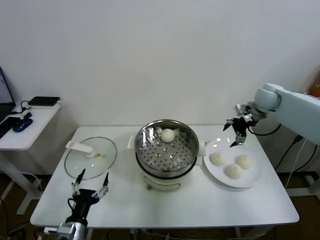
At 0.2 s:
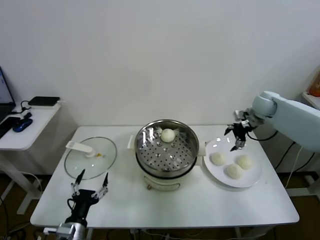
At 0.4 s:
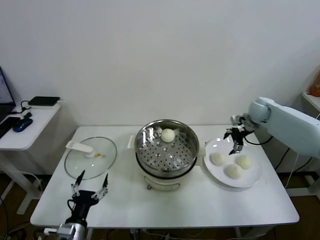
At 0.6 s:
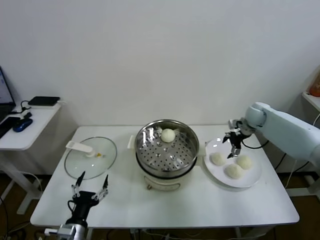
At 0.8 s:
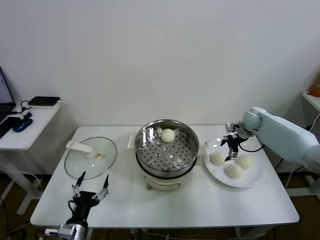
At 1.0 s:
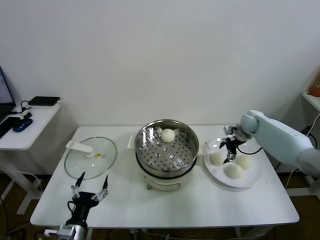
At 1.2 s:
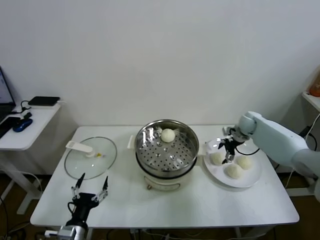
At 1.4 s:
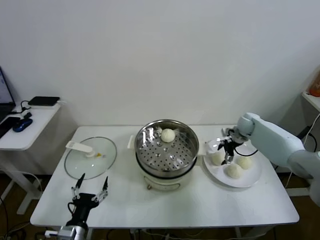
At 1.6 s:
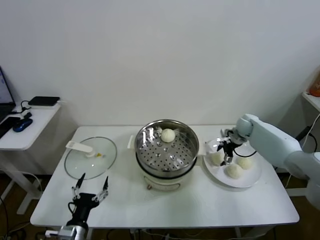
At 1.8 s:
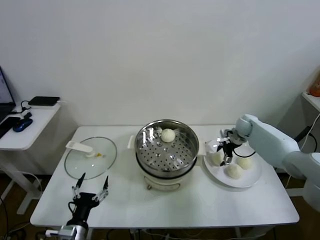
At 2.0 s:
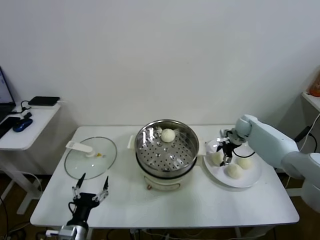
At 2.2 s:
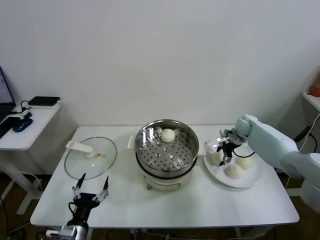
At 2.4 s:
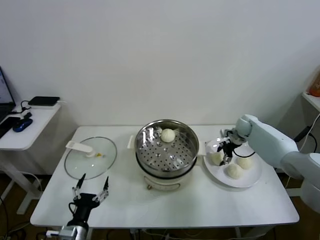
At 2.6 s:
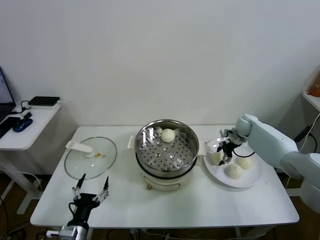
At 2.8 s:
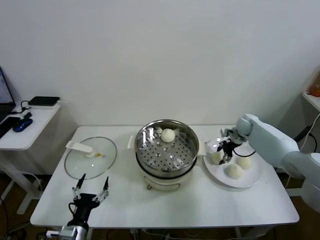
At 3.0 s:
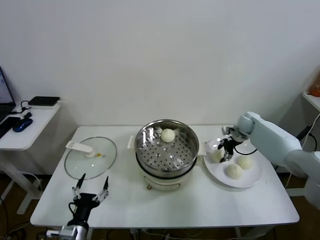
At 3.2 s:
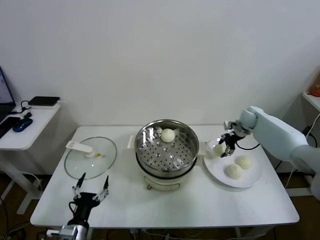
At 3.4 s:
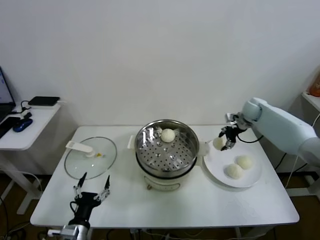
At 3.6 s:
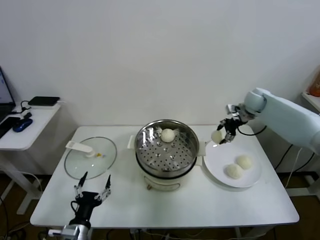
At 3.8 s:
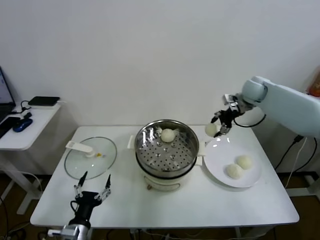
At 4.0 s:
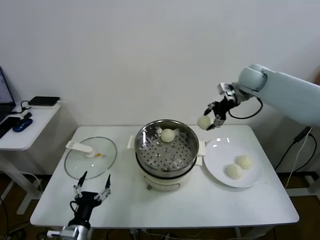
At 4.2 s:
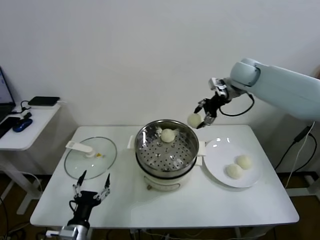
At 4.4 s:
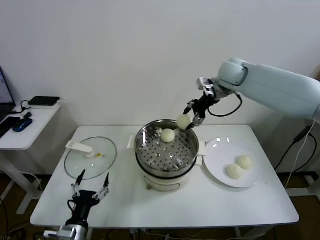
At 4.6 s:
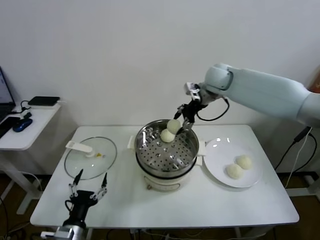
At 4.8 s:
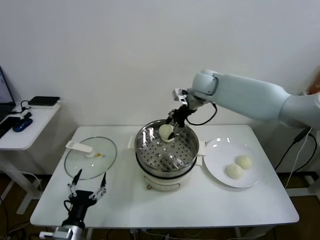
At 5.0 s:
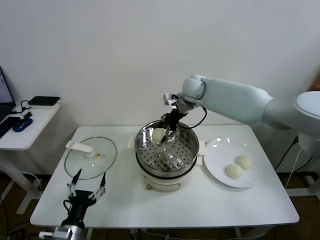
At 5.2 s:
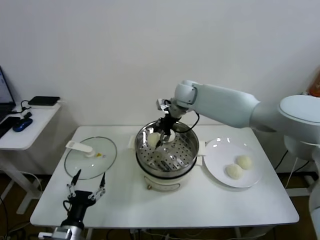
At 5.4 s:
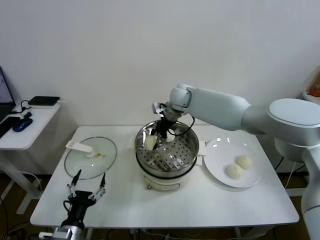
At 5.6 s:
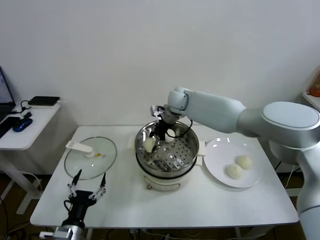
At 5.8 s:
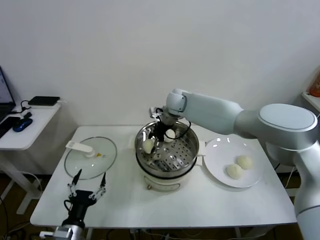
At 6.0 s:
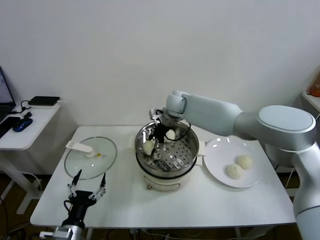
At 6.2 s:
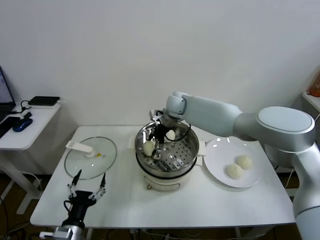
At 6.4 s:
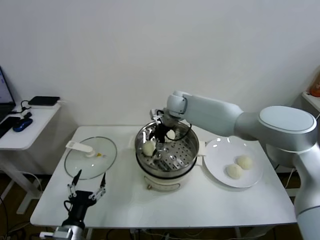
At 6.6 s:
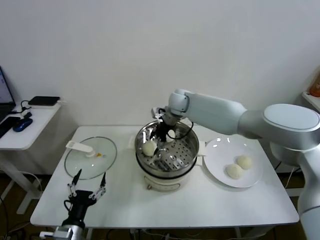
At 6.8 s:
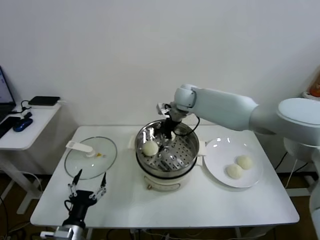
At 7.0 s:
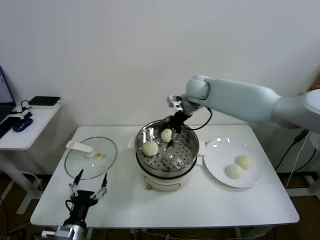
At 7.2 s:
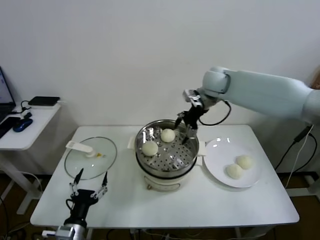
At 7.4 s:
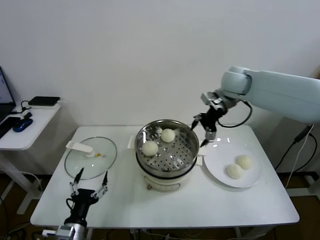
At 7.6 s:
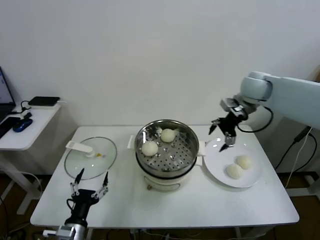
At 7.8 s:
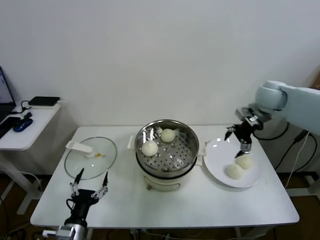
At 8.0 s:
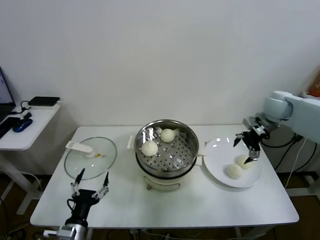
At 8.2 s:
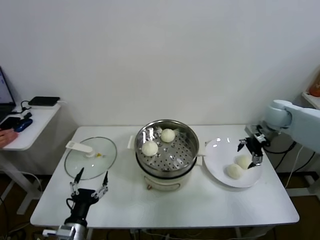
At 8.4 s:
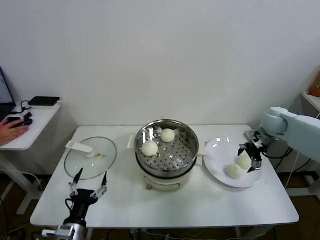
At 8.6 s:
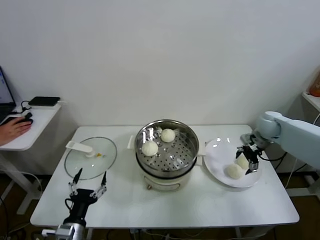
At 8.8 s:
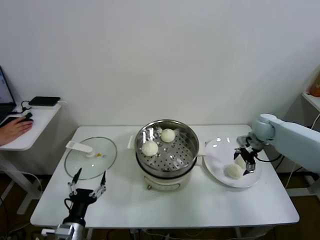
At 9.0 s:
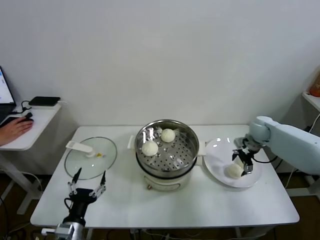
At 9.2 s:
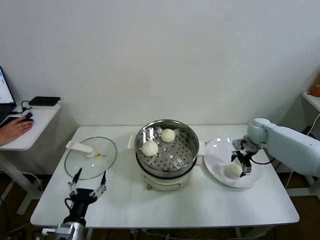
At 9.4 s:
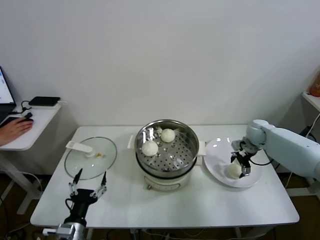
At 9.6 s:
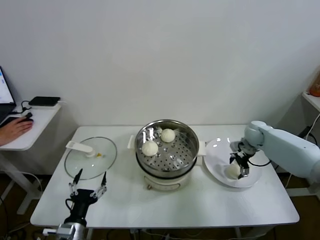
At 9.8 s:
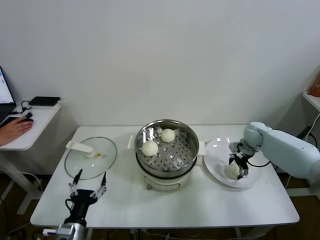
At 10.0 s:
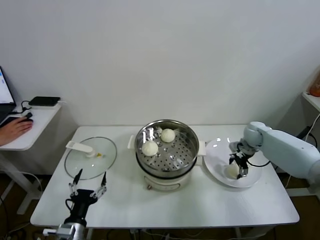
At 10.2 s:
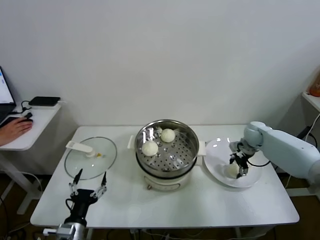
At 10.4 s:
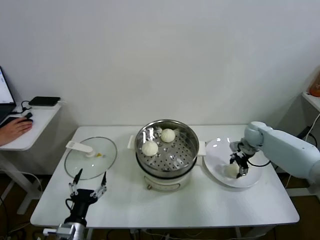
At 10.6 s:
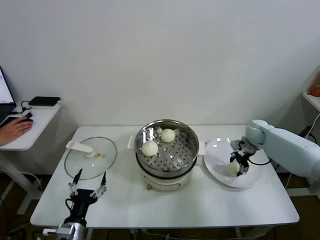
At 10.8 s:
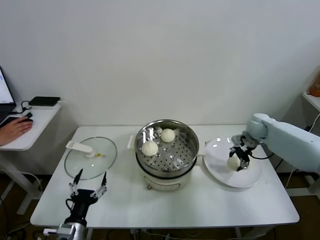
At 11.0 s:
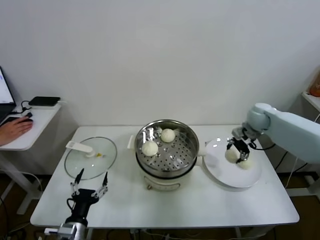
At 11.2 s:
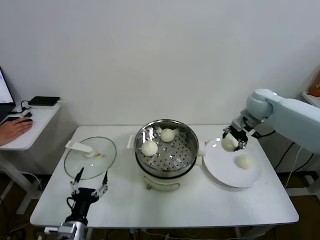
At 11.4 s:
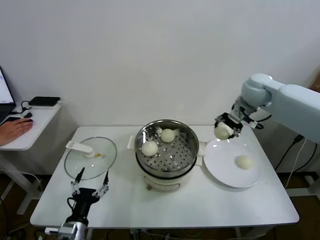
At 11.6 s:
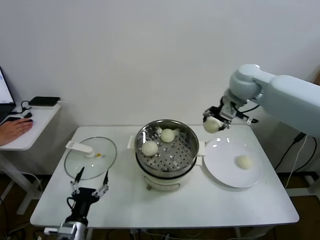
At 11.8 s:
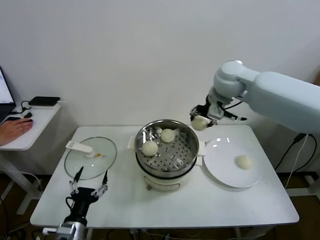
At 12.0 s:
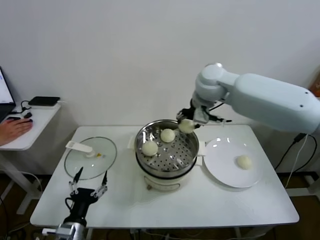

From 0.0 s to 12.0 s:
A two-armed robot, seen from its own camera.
Task of the whole recording: take steamed baozi put them in steamer.
Step, from 0.0 s to 2.6 s: Grasp the baozi in the plate with right gripper.
Step, from 2.8 s to 6.4 s: Place the baozi on the steamer with right gripper.
Step, from 6.6 s to 10.4 s: Grasp the baozi in the plate with right gripper.
From 0.0 s to 1.6 s: The right gripper goes some 15 cm downward.
From 1.6 s to 3.0 s: The right gripper closes up.
From 3.0 s to 4.4 s: The right gripper shifts roughly 30 cm upward and to the left.
From 4.4 s to 6.0 s: The right gripper is displaced to the left and downward by approximately 20 cm.
From 6.0 s to 7.6 s: The right gripper goes approximately 25 cm to the right and upward, and opens its fingers.
From 7.6 s to 9.0 s: The right gripper heads downward and to the right, covering about 20 cm.
From 9.0 s to 10.4 s: The right gripper closes up.
From 10.4 s to 12.0 s: The right gripper travels upward and to the left by approximately 35 cm.

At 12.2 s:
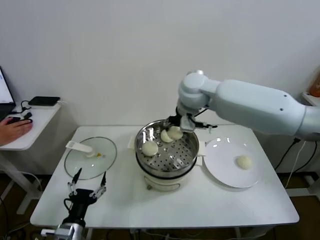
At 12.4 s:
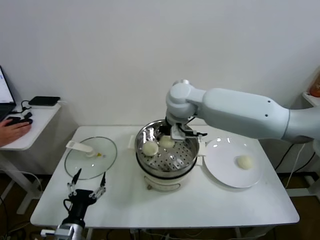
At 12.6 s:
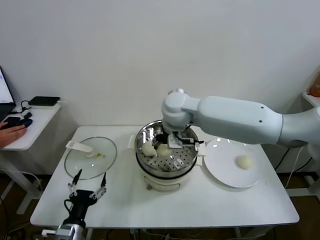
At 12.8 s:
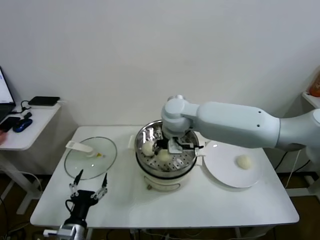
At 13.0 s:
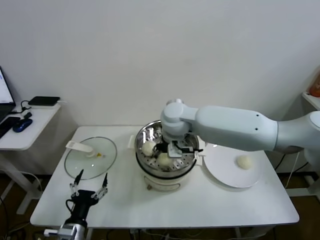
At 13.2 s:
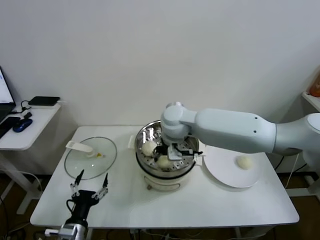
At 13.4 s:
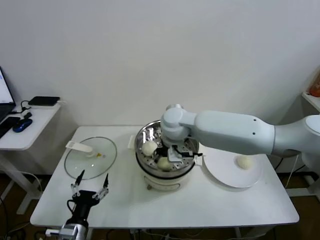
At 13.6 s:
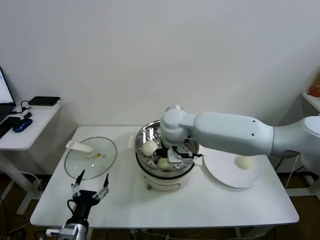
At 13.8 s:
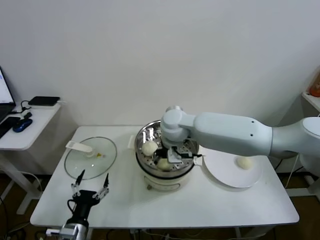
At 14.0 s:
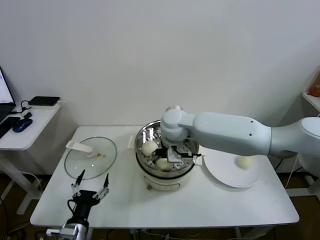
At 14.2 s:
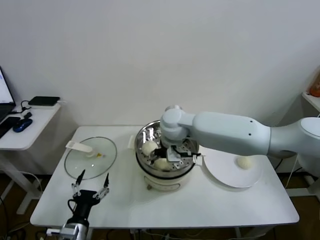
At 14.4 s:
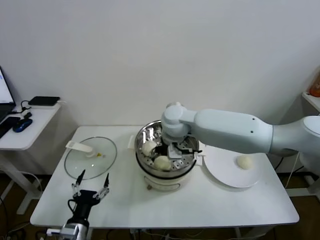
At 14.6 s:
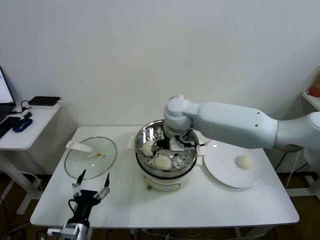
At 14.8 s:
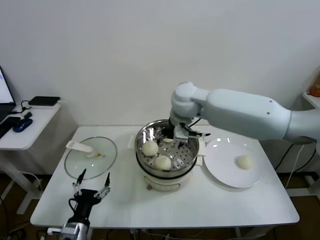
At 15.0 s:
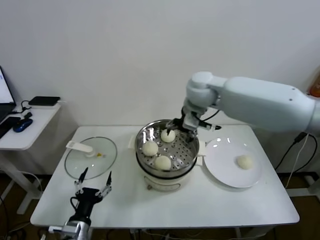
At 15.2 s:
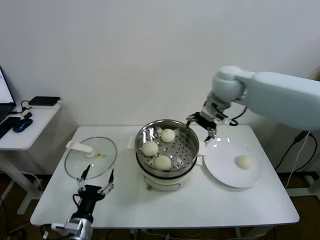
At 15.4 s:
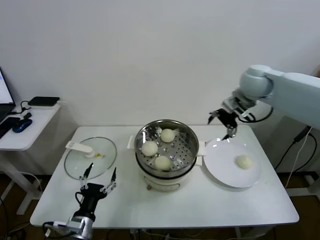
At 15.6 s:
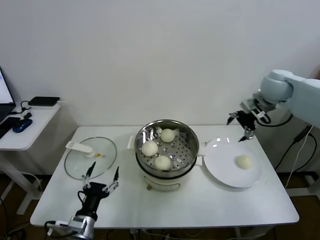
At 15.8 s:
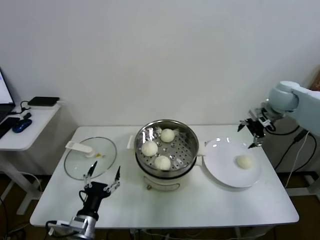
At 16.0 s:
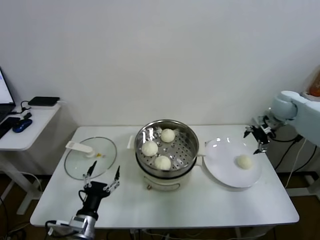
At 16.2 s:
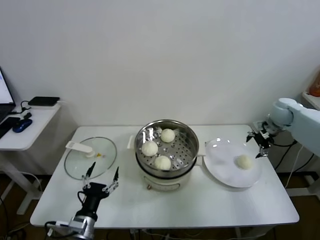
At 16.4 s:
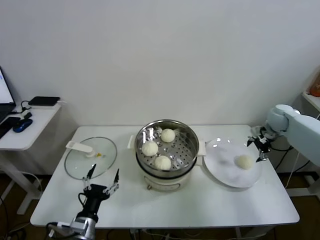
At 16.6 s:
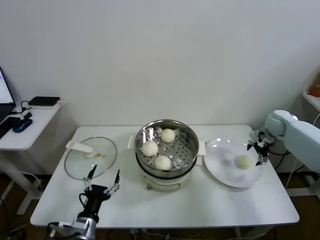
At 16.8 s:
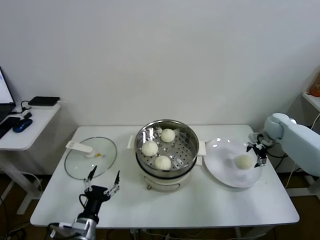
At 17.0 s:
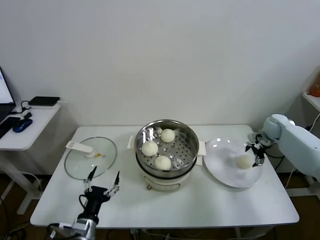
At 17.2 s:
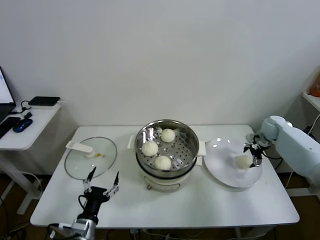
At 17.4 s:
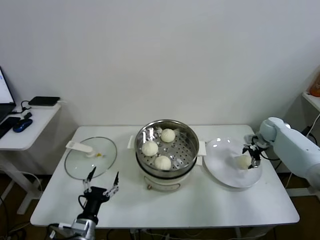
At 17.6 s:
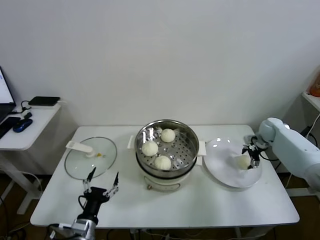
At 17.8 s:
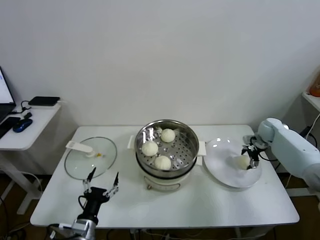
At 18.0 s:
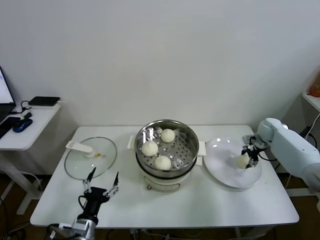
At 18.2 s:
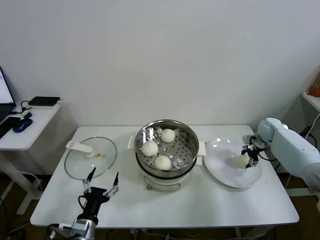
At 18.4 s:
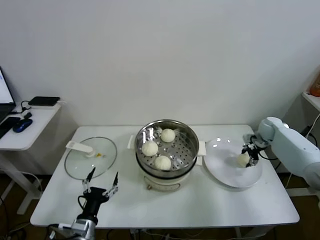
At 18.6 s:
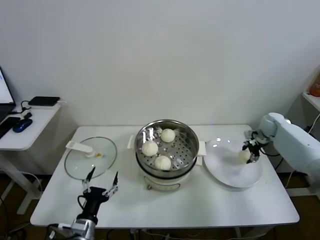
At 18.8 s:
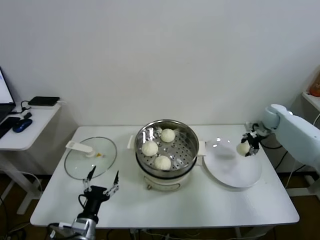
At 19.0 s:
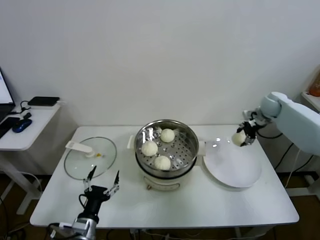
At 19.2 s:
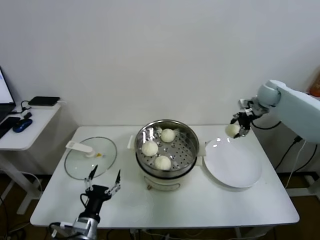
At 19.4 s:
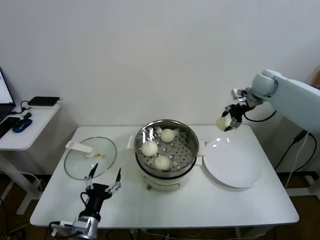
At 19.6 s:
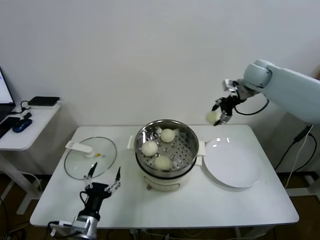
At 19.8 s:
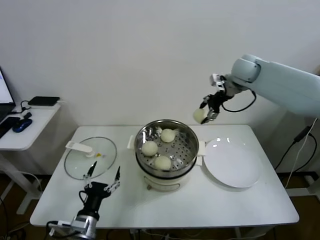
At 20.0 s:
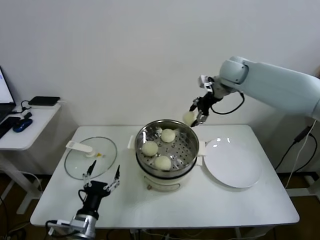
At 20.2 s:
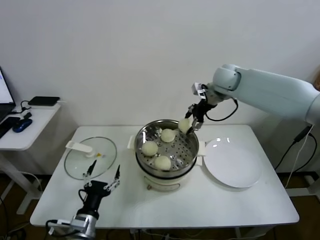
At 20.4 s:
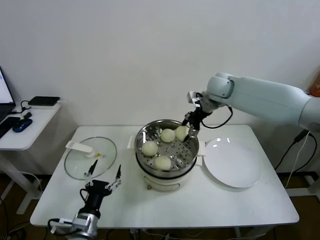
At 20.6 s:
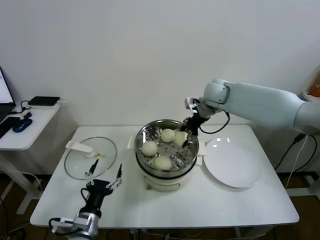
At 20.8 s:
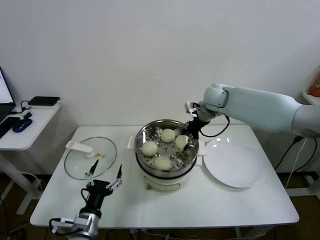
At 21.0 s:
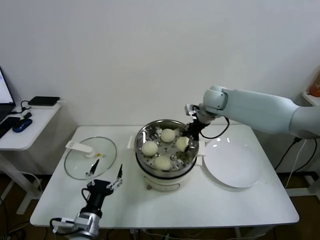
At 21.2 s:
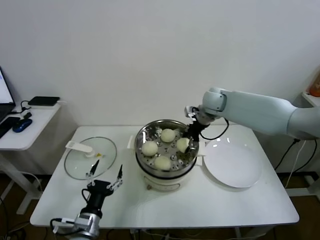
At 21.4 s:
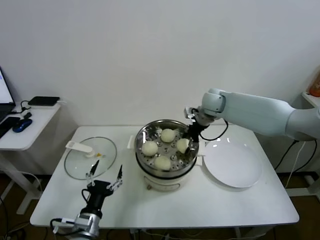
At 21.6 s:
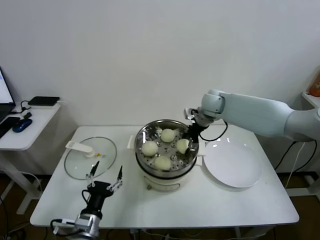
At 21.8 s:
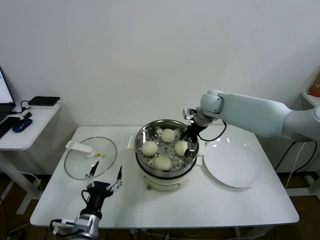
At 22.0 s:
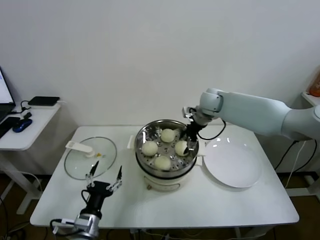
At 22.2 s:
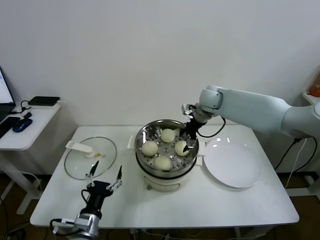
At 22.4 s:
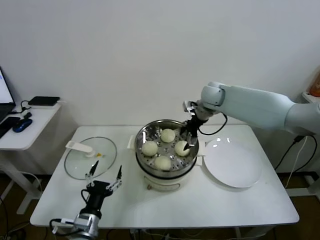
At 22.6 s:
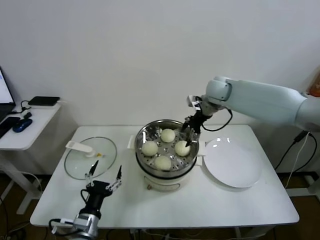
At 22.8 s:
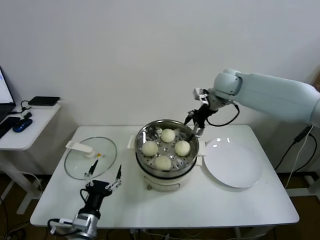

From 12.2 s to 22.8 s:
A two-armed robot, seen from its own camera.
Task of the whole recording: take steamed baozi put them in steamer.
Step, from 12.2 s to 14.2 s: Place the baozi on the steamer with right gripper.
Step, from 14.6 s to 18.2 s: Grasp the baozi in the plate with right gripper.
Step, from 18.4 s to 21.8 s: Place the baozi on the steamer with right gripper.
From 12.2 s to 13.8 s: The right gripper moves downward and to the left, about 10 cm.
From 13.8 s to 15.2 s: The right gripper heads to the right and upward, covering some 20 cm, and opens its fingers.
From 15.2 s to 16.8 s: The right gripper is displaced to the right and downward by about 35 cm.
From 16.8 s to 18.2 s: The right gripper closes its fingers.
From 18.2 s to 19.8 s: The right gripper heads upward and to the left, covering roughly 30 cm.
From 19.8 s to 21.2 s: The right gripper travels downward and to the left by approximately 15 cm.
From 21.2 s to 22.8 s: The right gripper is displaced upward by some 5 cm, and opens up.
